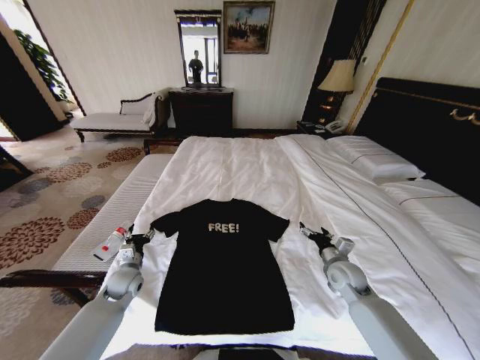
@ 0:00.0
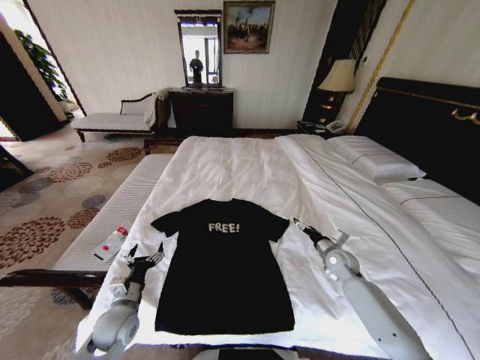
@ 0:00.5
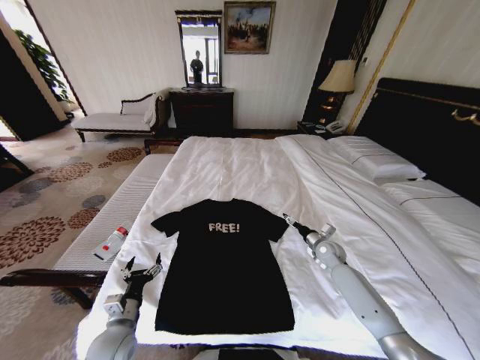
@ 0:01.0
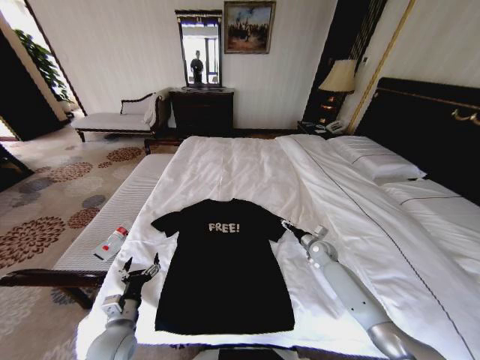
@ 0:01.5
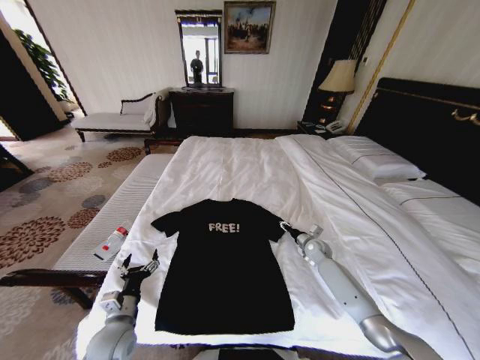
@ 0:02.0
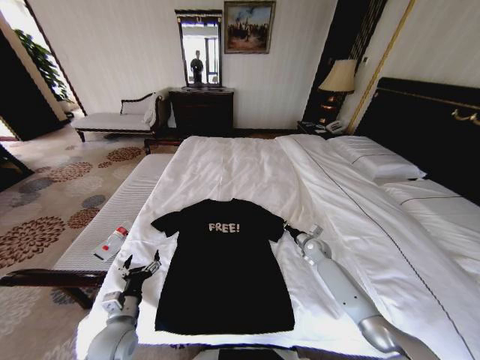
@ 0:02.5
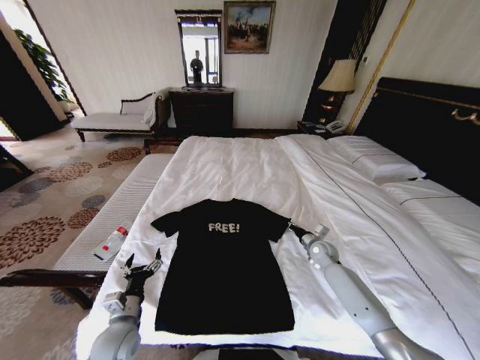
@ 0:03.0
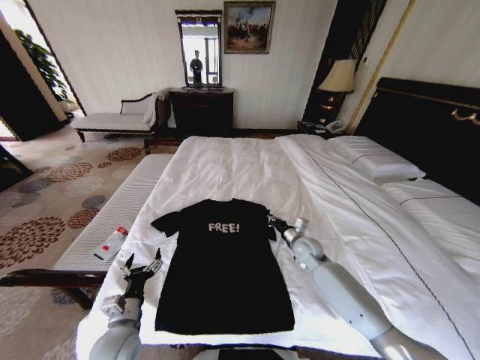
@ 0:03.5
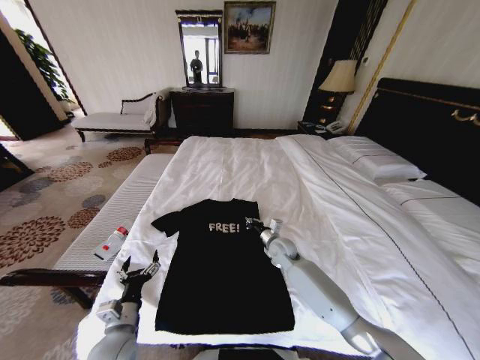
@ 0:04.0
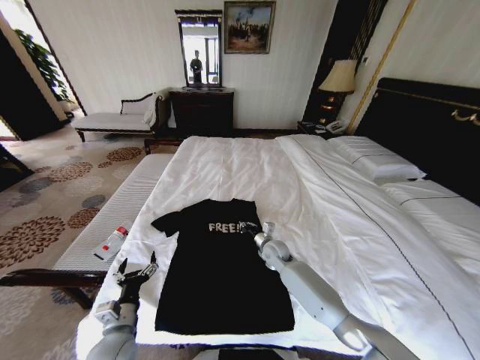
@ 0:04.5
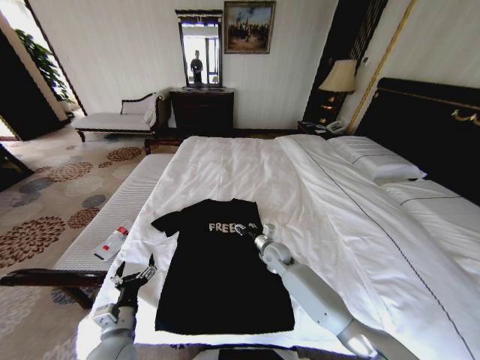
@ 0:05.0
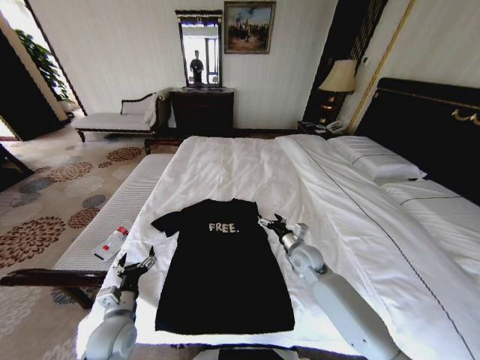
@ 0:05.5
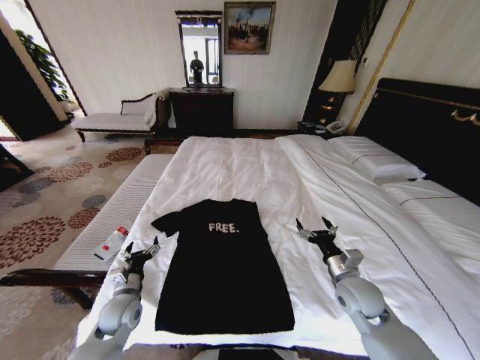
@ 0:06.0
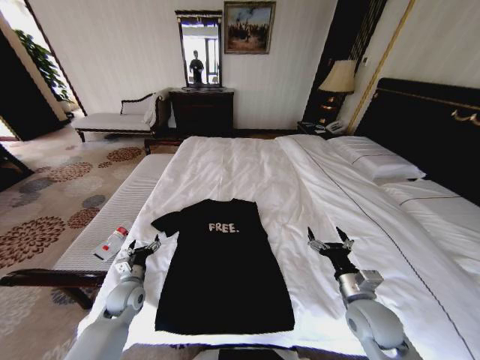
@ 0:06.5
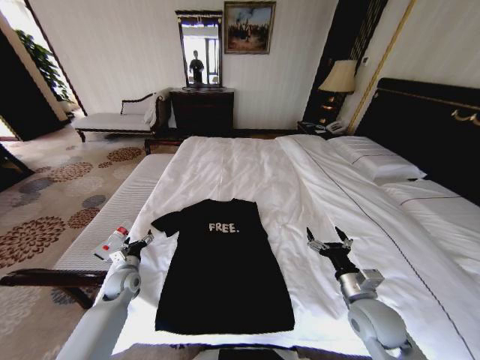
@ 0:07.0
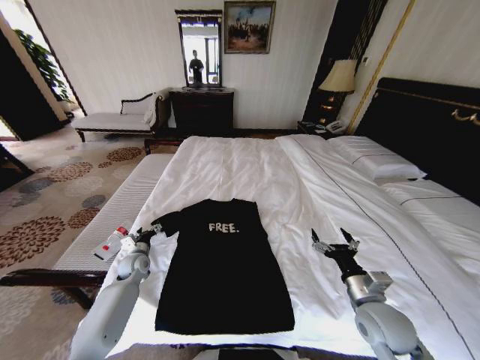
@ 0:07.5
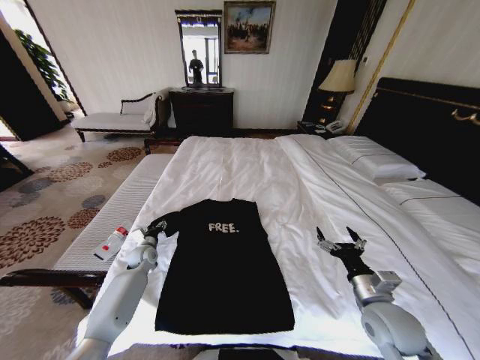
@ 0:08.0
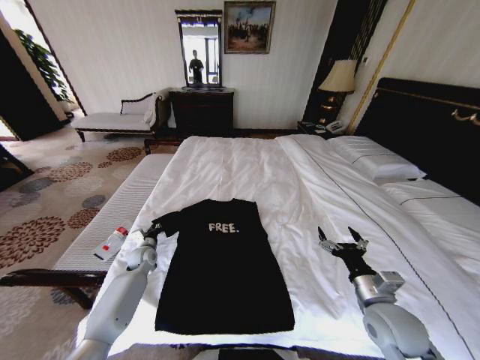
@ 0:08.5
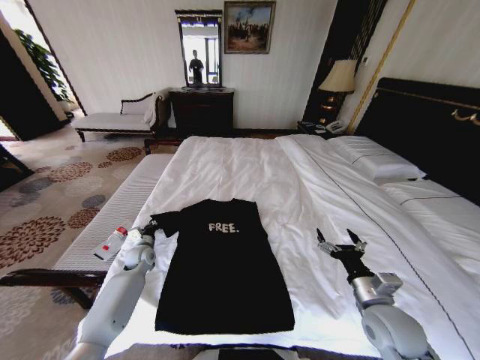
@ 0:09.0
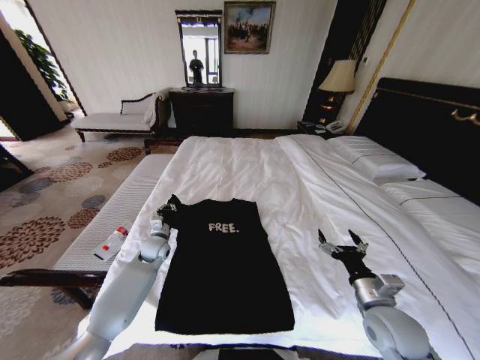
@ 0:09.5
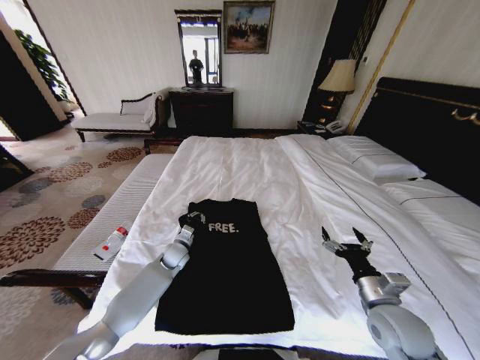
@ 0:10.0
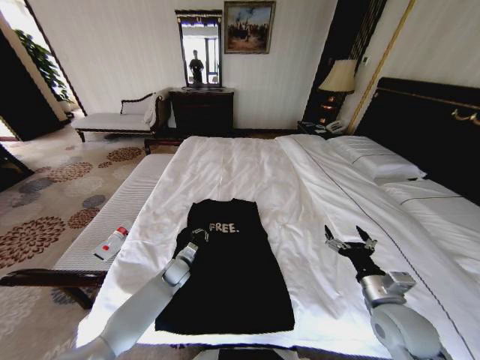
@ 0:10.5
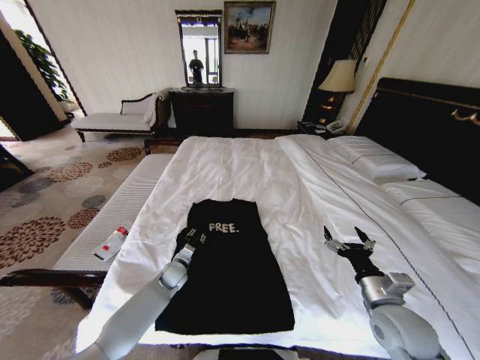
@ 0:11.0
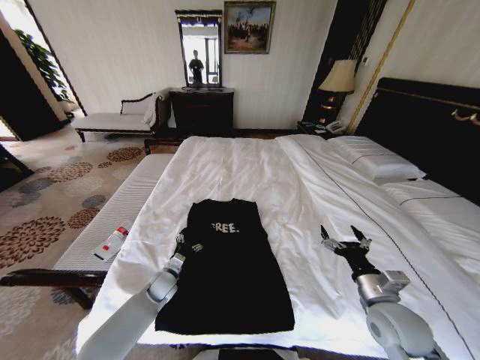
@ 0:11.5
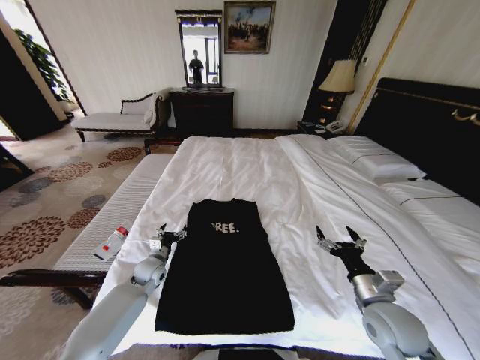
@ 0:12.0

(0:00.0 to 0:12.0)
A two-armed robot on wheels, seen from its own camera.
Task of the whole recording: Fold the clothes on the bed.
0:00.0 - 0:02.0: The left gripper goes some 15 cm backward. The right gripper travels forward and downward by some 15 cm, and closes.
0:02.0 - 0:04.0: The right gripper moves to the left, about 15 cm, and closes its fingers.
0:04.0 - 0:06.0: The right gripper travels backward and to the right by some 20 cm, and opens. The left gripper shifts approximately 10 cm forward.
0:06.0 - 0:08.0: The left gripper heads forward, covering approximately 20 cm; the right gripper moves backward, about 5 cm.
0:08.0 - 0:10.0: The left gripper moves to the right, about 15 cm, and closes its fingers.
0:10.0 - 0:12.0: The left gripper goes approximately 10 cm to the left and backward, and opens its fingers.

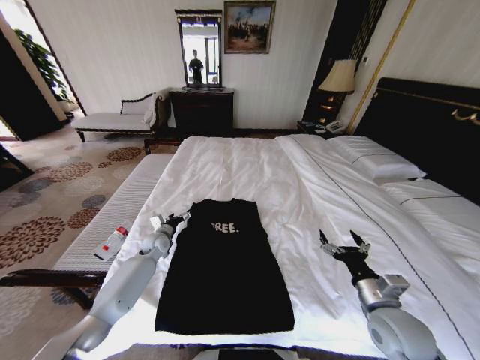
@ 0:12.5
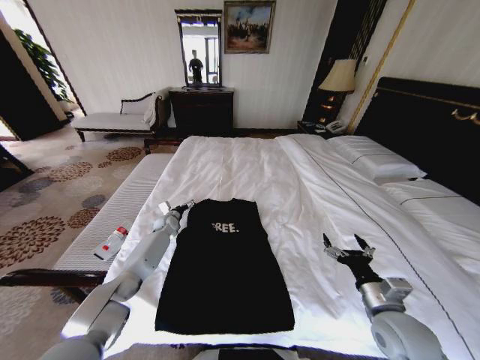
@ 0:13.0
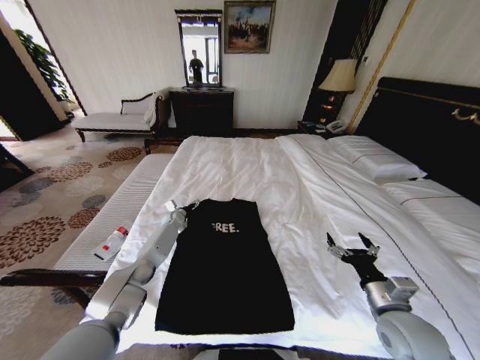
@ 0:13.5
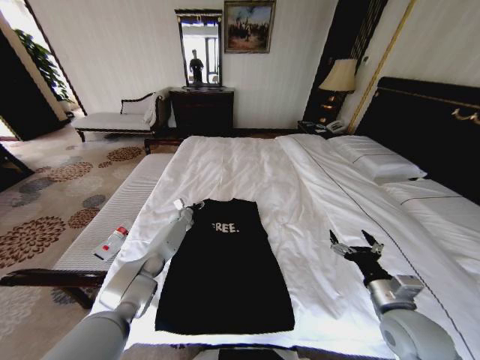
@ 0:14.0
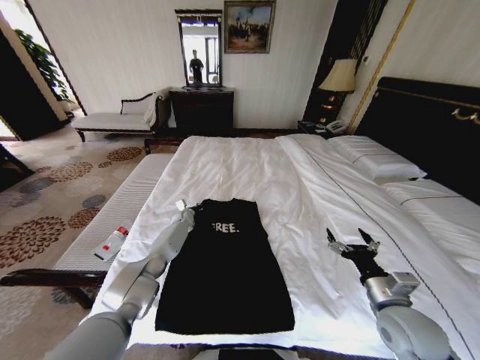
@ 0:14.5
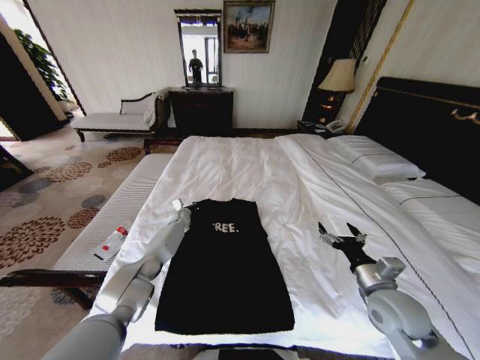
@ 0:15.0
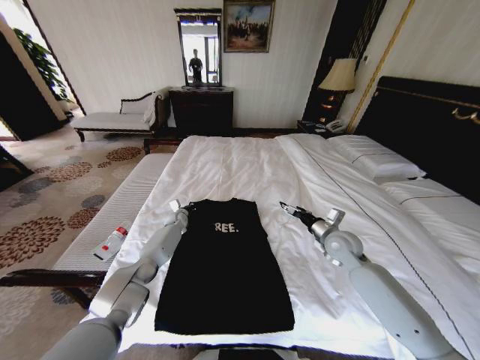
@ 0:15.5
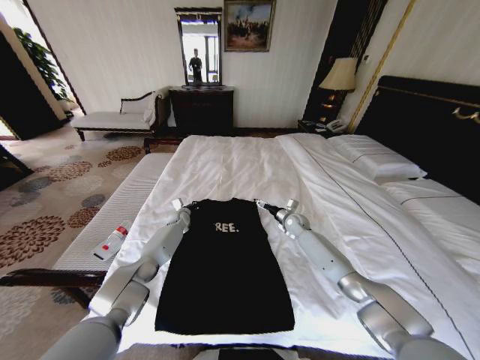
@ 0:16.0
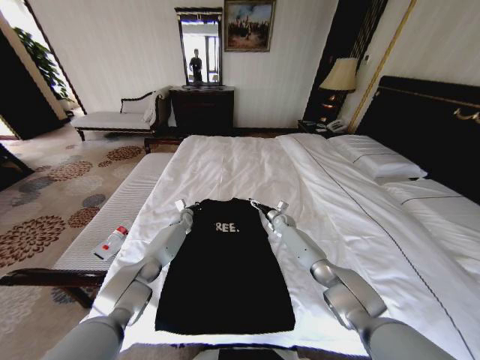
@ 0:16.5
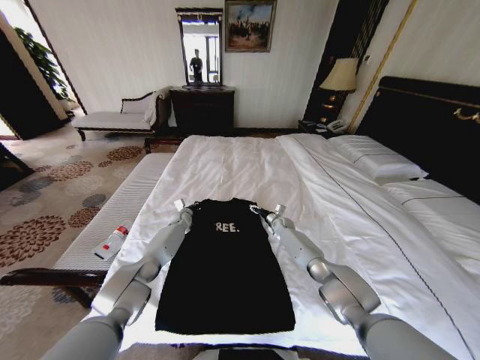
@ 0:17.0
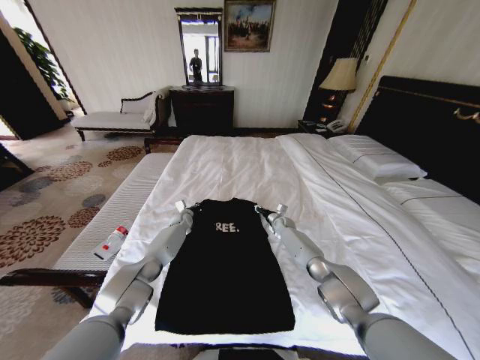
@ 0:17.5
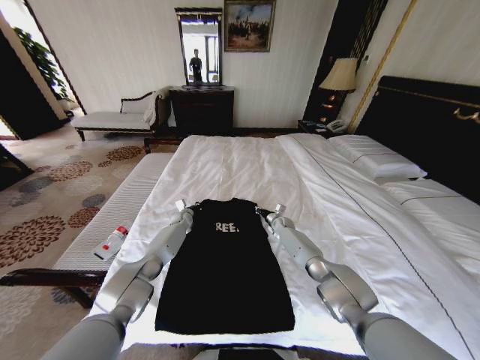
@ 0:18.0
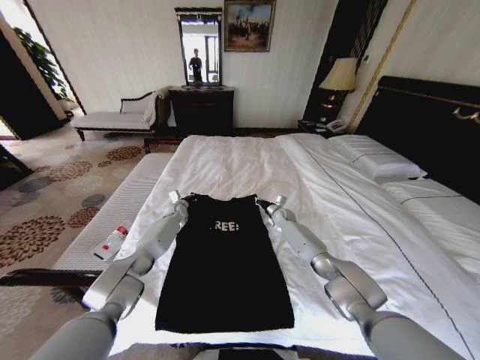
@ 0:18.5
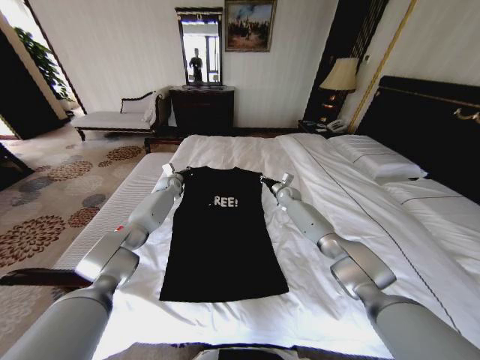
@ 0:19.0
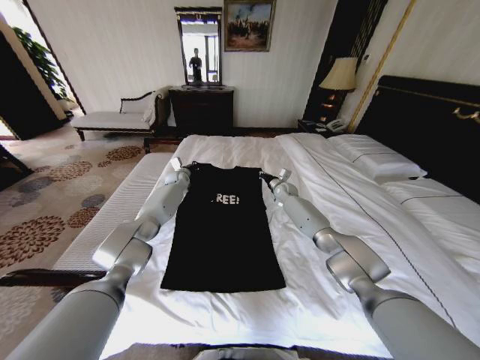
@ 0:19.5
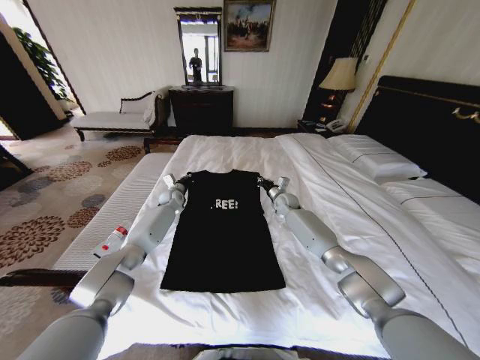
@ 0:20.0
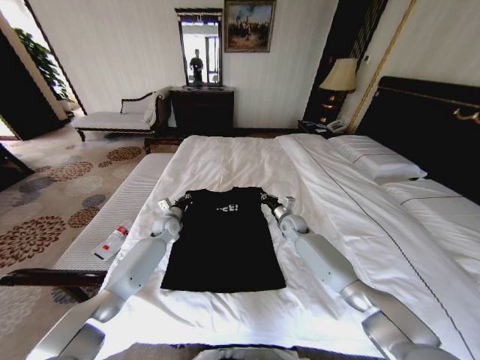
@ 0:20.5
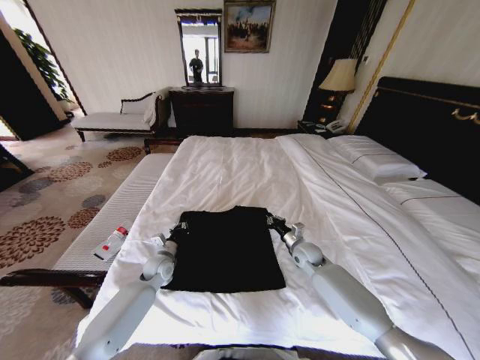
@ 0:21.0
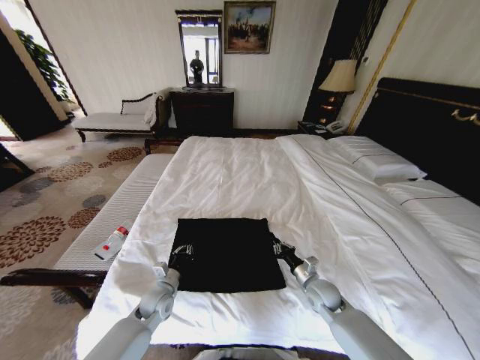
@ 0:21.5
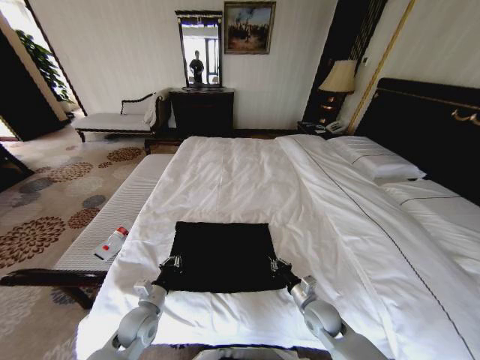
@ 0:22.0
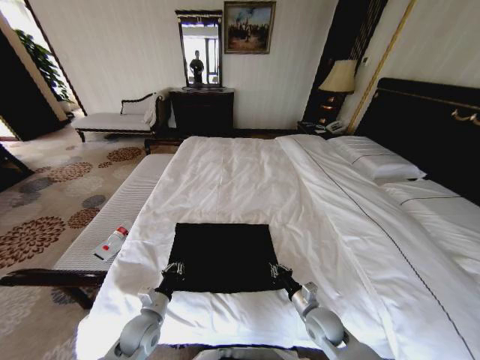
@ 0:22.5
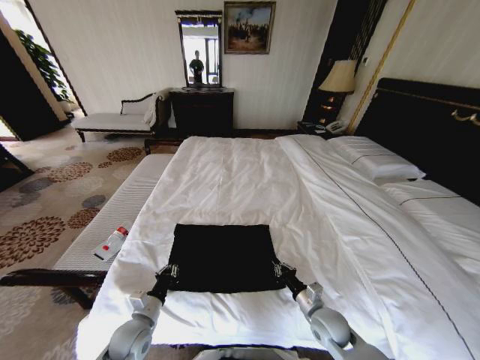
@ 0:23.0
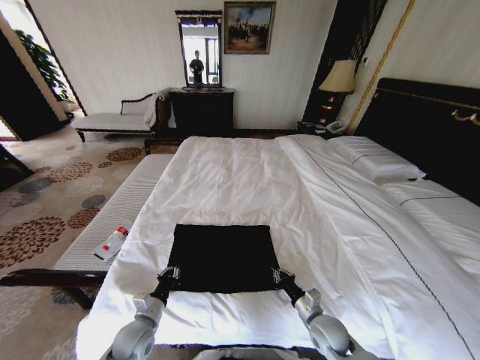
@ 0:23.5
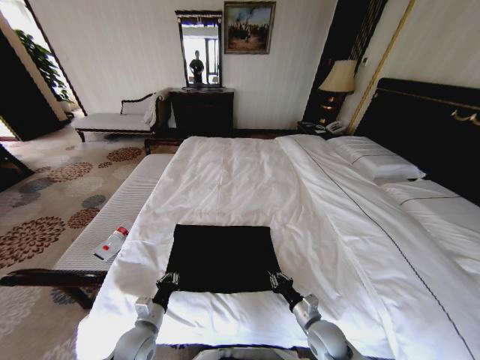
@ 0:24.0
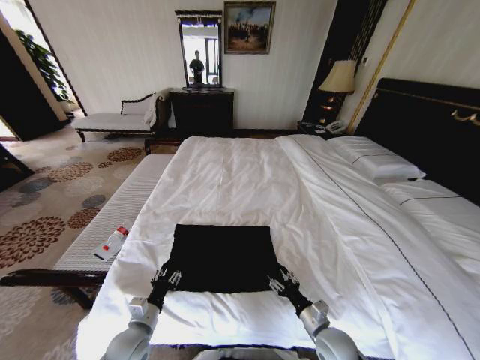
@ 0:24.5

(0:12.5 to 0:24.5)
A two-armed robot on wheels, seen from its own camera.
Task of the whole recording: Fold the clothes on the bed.
0:12.5 - 0:14.5: The left gripper travels forward and to the right by about 15 cm, and closes up.
0:14.5 - 0:16.5: The right gripper is displaced forward by some 40 cm.
0:16.5 - 0:18.5: The right gripper closes its fingers.
0:18.5 - 0:20.5: The two grippers go some 10 cm backward.
0:20.5 - 0:22.5: The two grippers go approximately 30 cm backward.
0:22.5 - 0:24.5: The right gripper changes place by approximately 5 cm, and opens; the left gripper opens up.

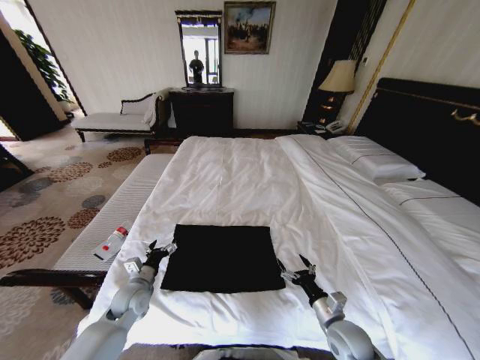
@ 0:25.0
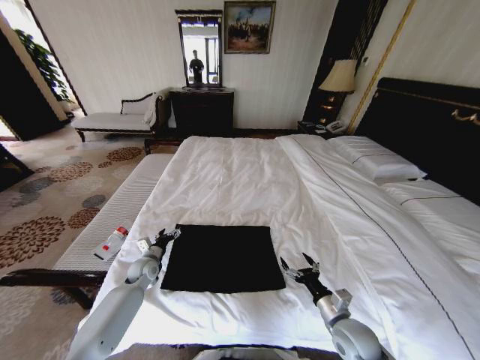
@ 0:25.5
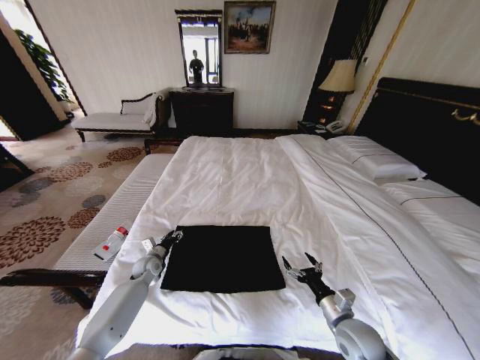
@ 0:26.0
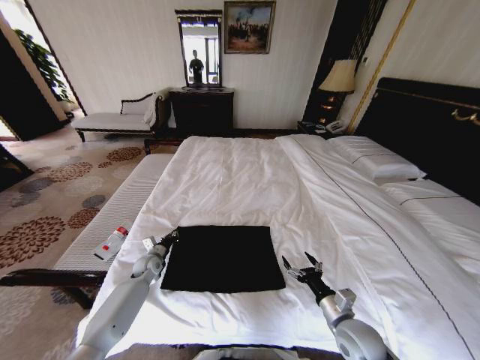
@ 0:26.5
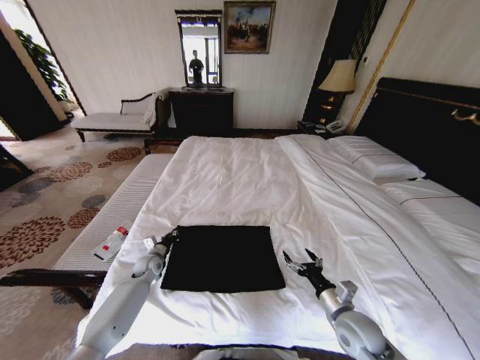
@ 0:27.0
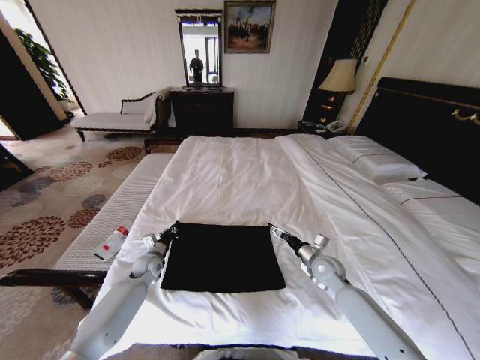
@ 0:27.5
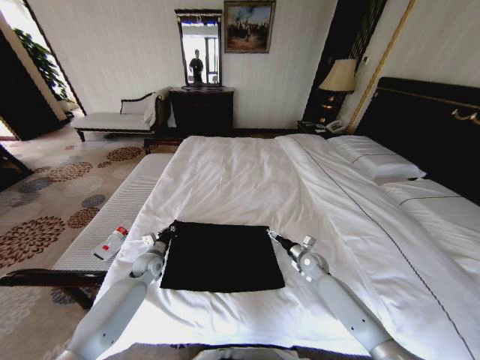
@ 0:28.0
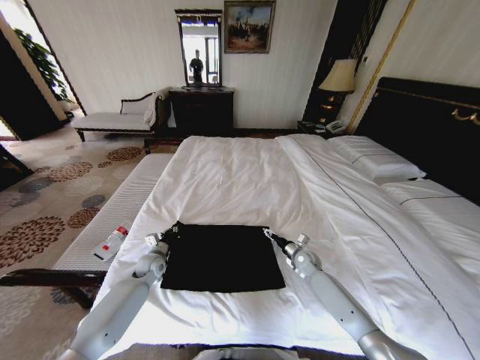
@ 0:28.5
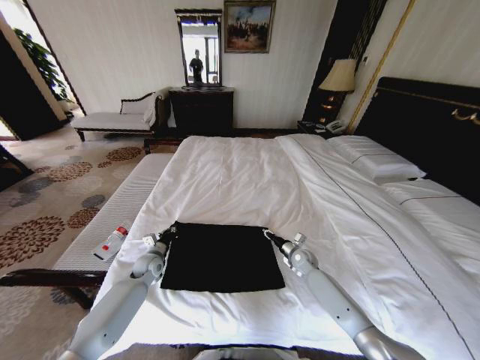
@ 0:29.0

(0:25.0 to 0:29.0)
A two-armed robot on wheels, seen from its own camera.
Task of the whole recording: Fold the clothes on the bed.
0:25.0 - 0:27.0: The right gripper ends up some 5 cm from where it was; the left gripper goes about 15 cm forward and downward, and closes up.
0:27.0 - 0:29.0: The right gripper travels forward by about 25 cm, and closes.
